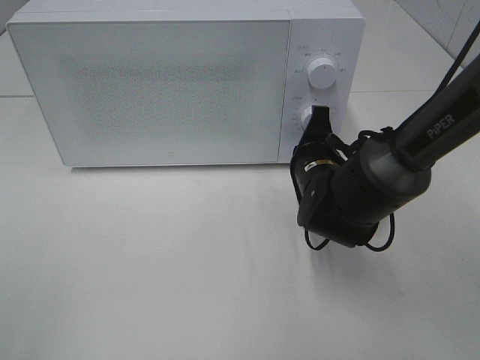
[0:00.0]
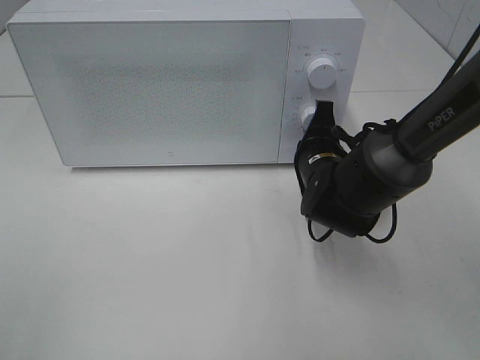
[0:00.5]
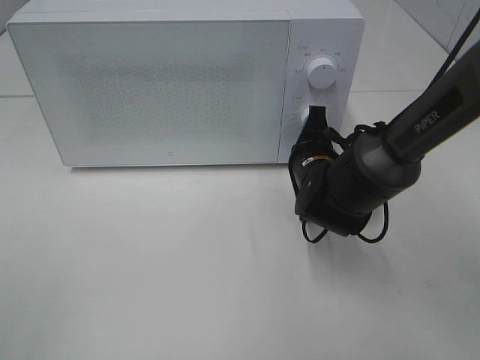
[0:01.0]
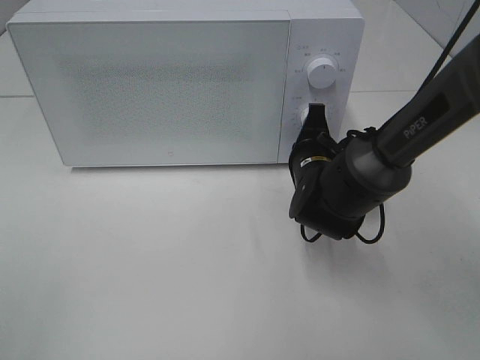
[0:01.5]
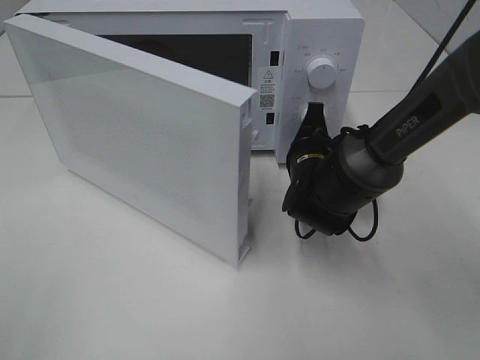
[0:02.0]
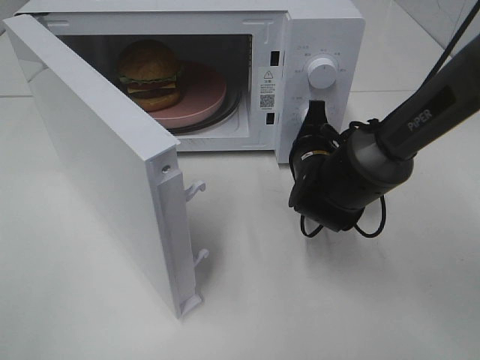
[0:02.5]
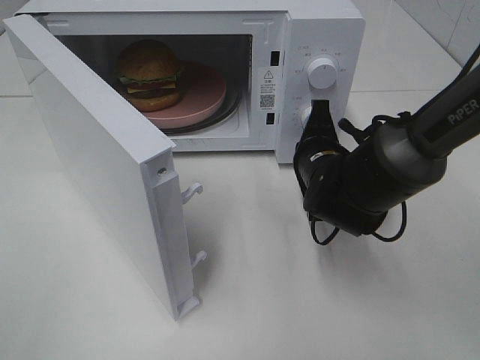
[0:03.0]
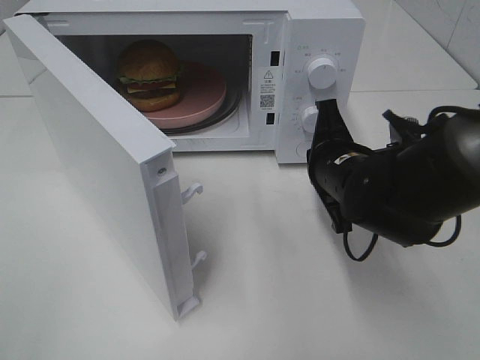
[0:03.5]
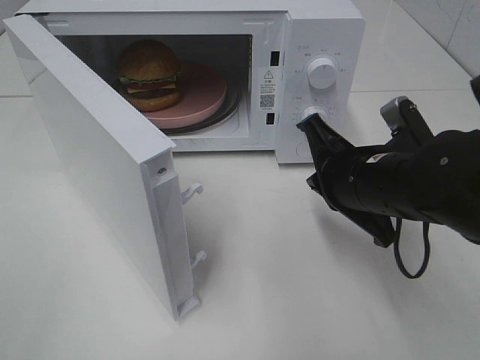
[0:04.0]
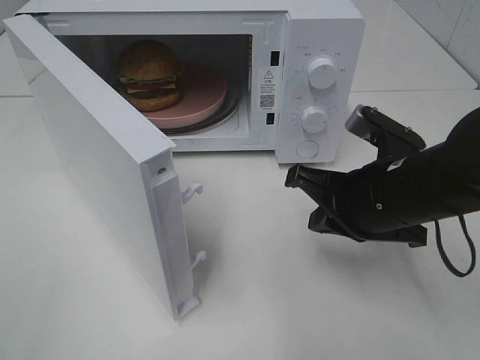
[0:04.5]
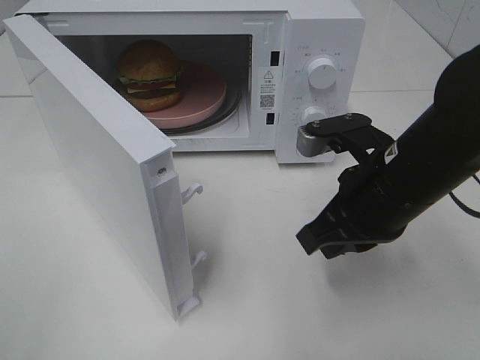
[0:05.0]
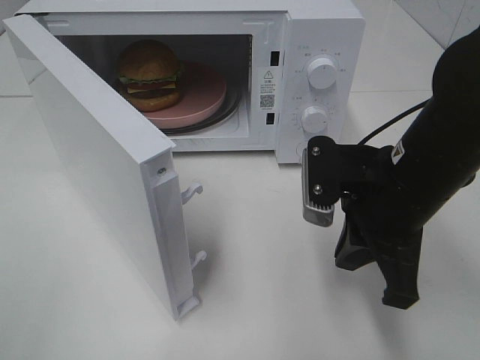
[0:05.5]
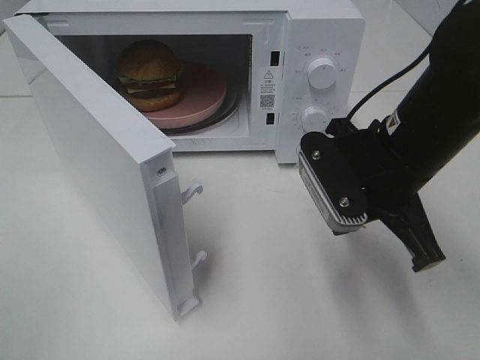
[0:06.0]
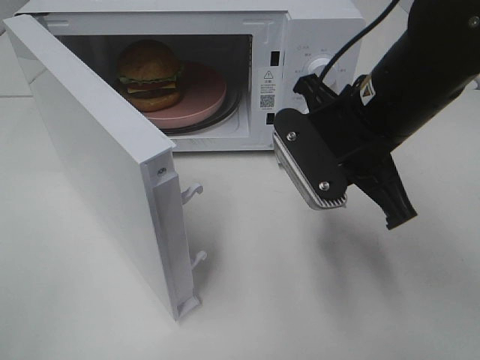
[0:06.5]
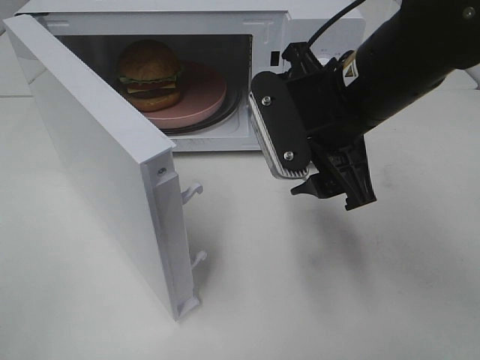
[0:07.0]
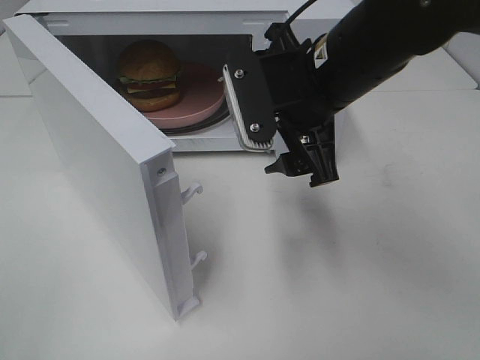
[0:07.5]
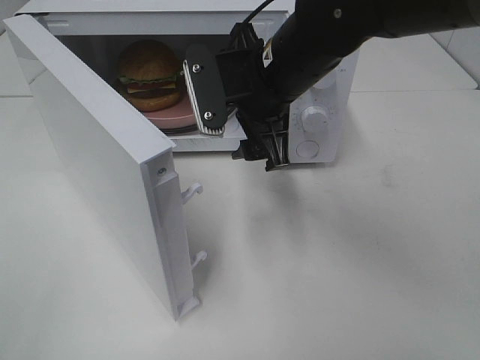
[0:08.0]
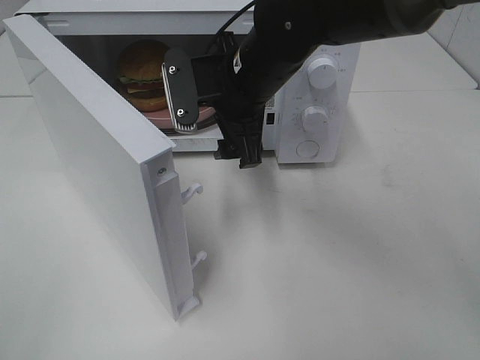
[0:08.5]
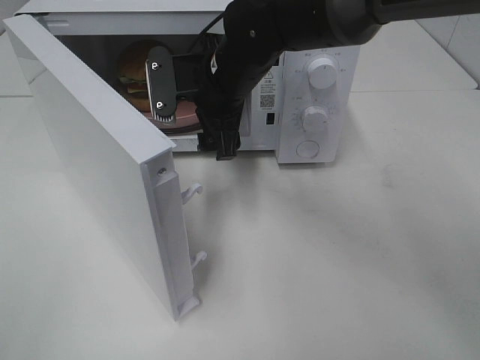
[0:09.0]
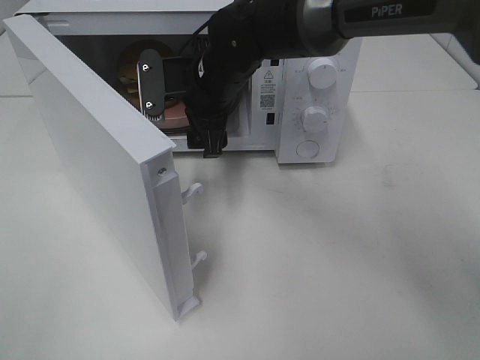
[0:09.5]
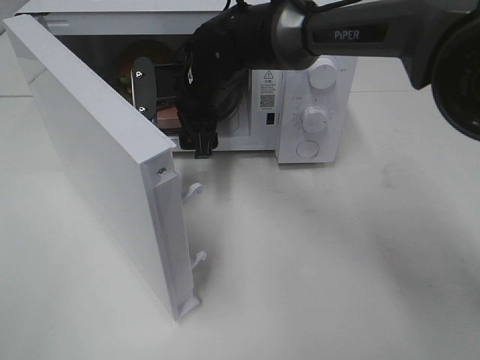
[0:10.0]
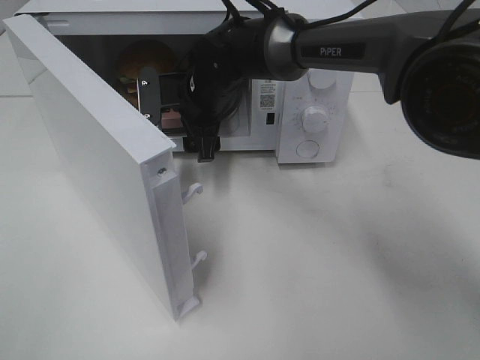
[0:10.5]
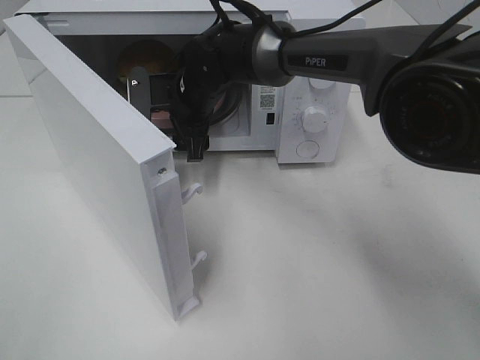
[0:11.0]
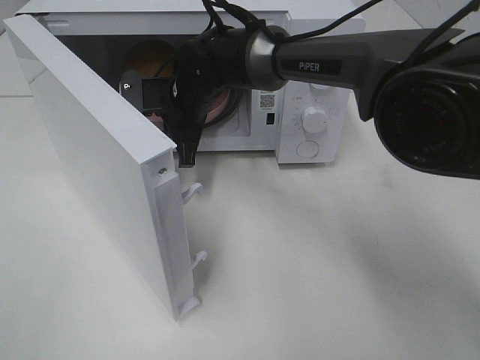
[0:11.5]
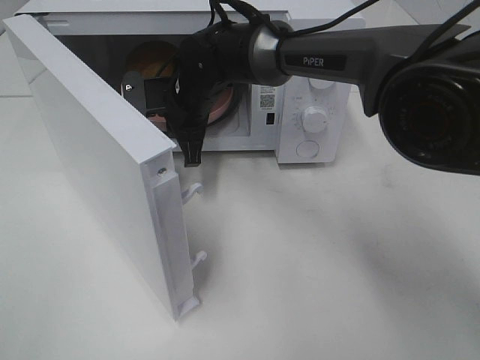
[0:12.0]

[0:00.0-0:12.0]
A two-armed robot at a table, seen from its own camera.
Task of the whole recording: Heat the burger.
Step, 0.0 to 3.0 s: Right hand: press the switch.
Step, 3.5 to 11.0 s: Right hand: grab the plate with the hamburger.
2.0 to 4.0 s: The right gripper heads backward and upward, covering about 15 cm.
4.0 to 6.0 s: The right gripper travels upward by roughly 5 cm.
6.0 to 8.0 s: The right gripper heads to the left and forward, covering some 15 cm, and opens up.
8.0 to 10.0 s: The right gripper is displaced forward, to the left and downward by roughly 15 cm.
10.0 to 12.0 s: The right gripper closes.

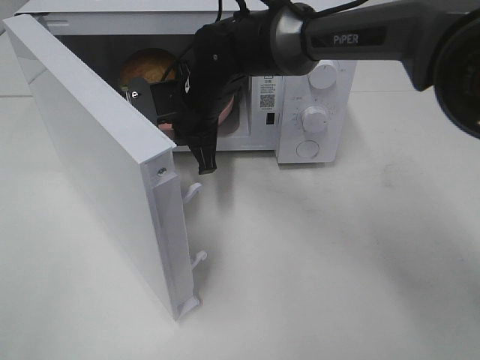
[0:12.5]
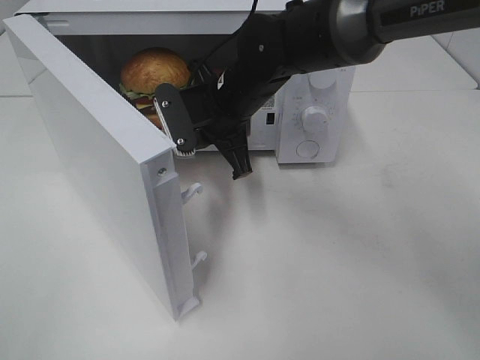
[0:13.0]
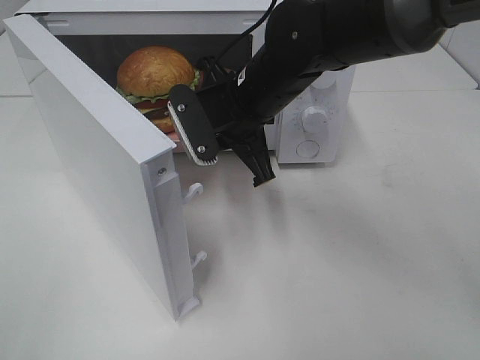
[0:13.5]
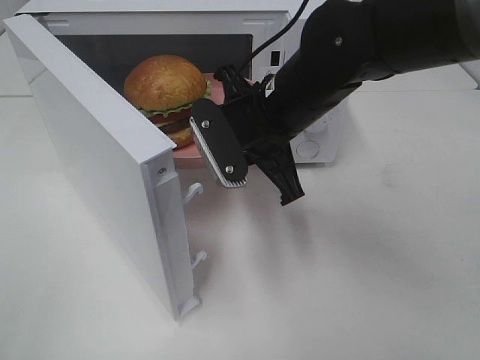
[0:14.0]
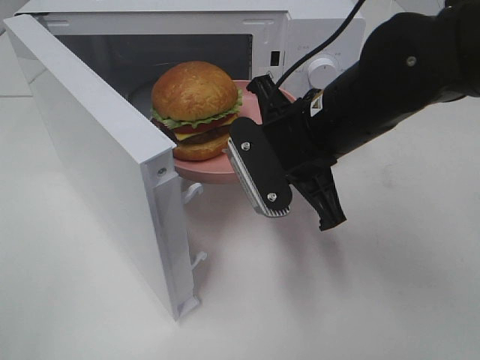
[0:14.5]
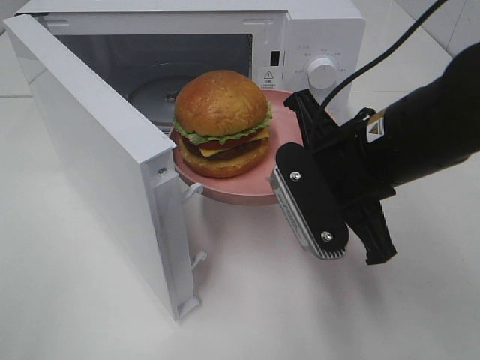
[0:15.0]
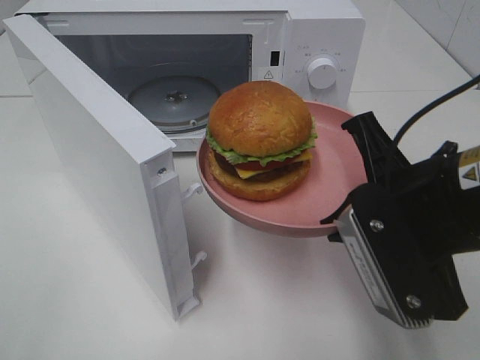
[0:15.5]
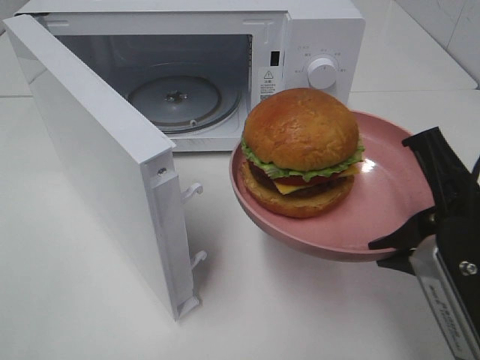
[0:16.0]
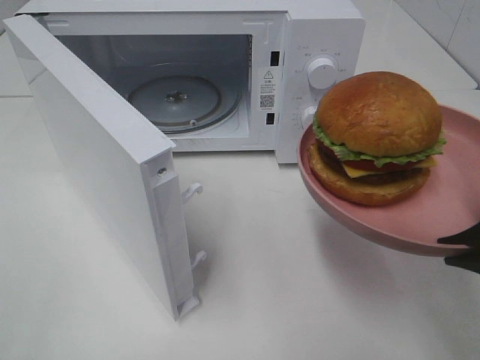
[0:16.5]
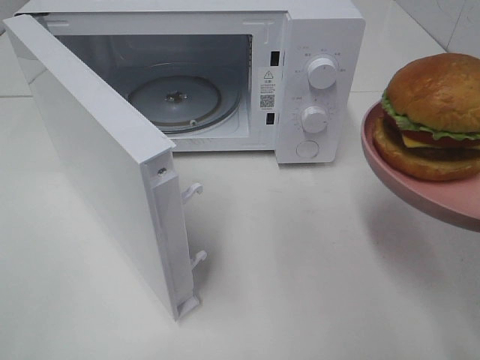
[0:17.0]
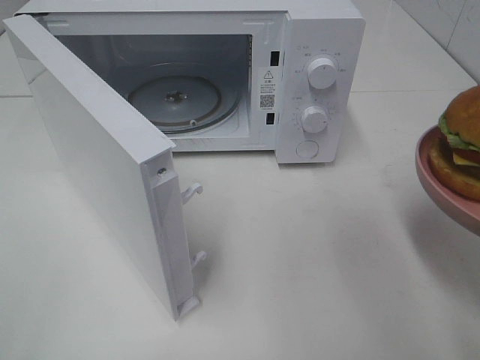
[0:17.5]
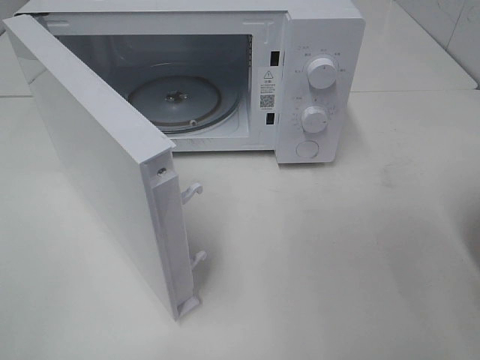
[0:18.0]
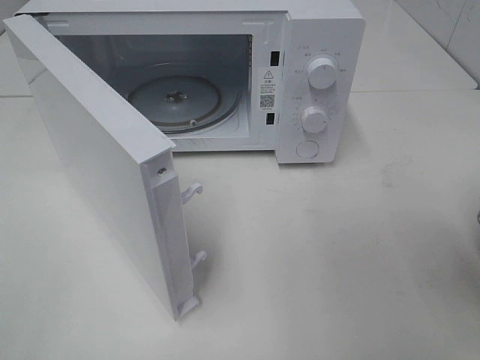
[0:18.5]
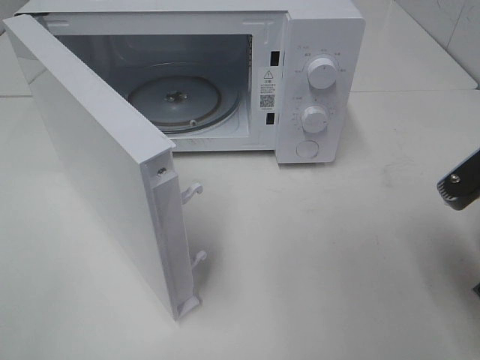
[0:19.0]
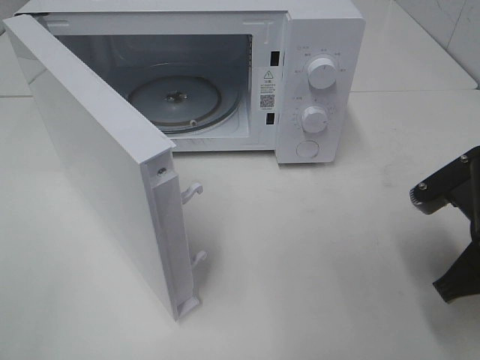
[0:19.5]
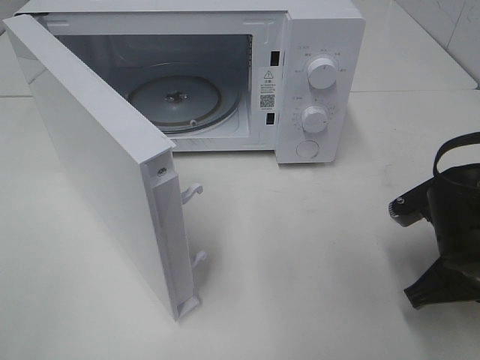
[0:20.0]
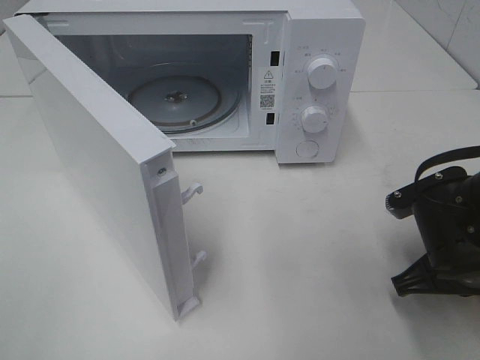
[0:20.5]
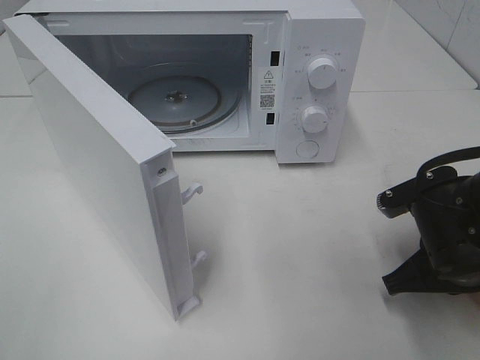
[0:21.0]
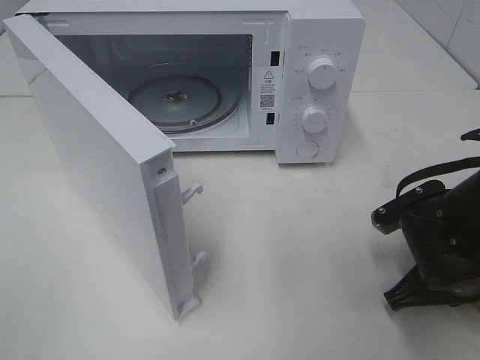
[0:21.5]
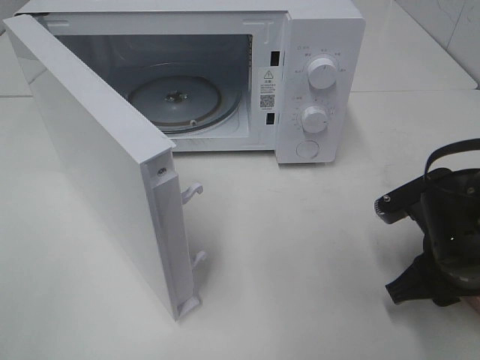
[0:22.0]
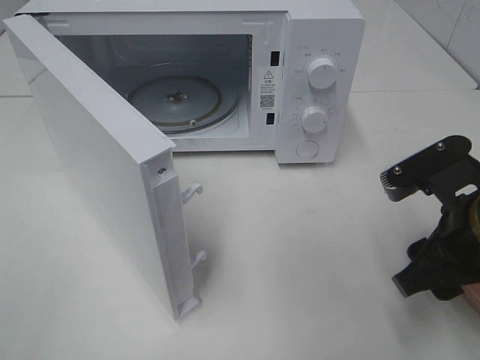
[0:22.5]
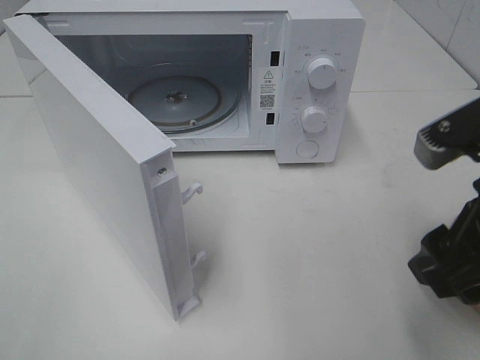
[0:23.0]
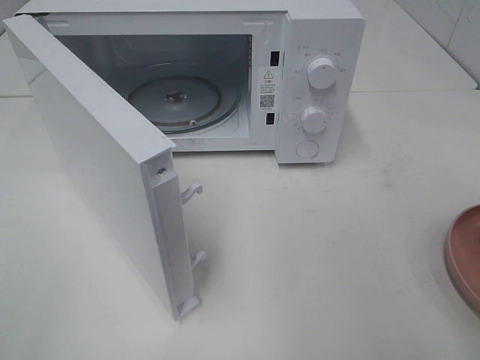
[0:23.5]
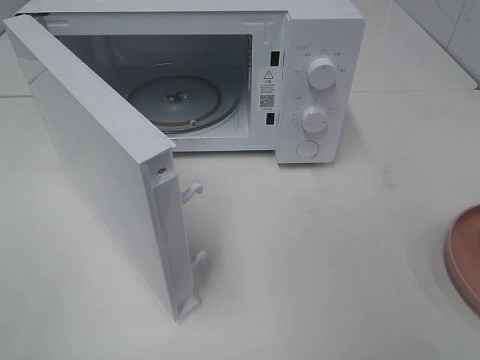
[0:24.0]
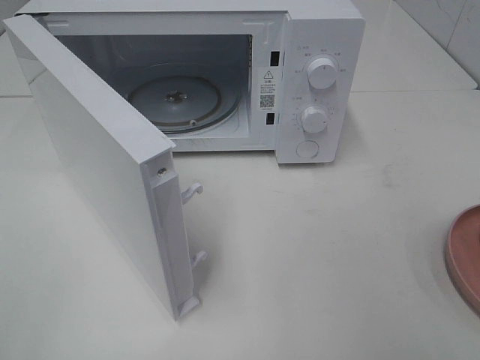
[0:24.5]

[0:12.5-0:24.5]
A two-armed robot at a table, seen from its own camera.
Task of the whole recording: Heat the burger.
Step, 12.5 to 21.5 s: Right hand: place the plate on the table.
12.5 to 14.5 s: The right gripper is displaced backward and to the right by some 20 cm.
14.5 to 16.5 s: The right gripper travels backward and to the right by about 20 cm.
16.5 to 18.5 s: The right gripper shifts by some 5 cm.
18.5 to 20.5 s: The right gripper moves downward and forward, about 10 cm.
20.5 to 22.5 s: The right gripper is displaced upward by some 5 cm, and opens up.
22.5 to 24.5 s: The right gripper moves backward, upward and to the right, about 20 cm.

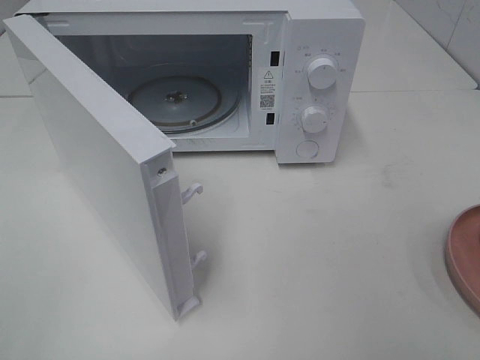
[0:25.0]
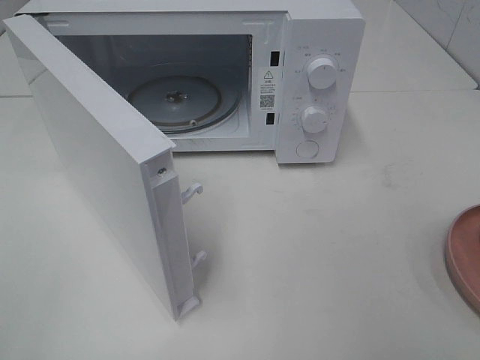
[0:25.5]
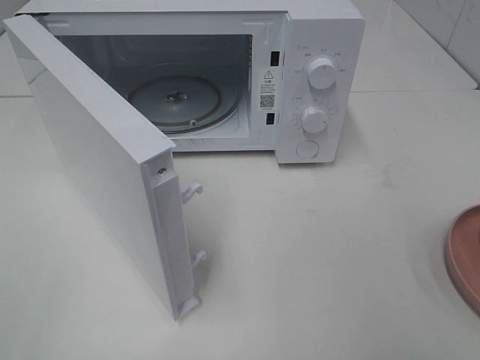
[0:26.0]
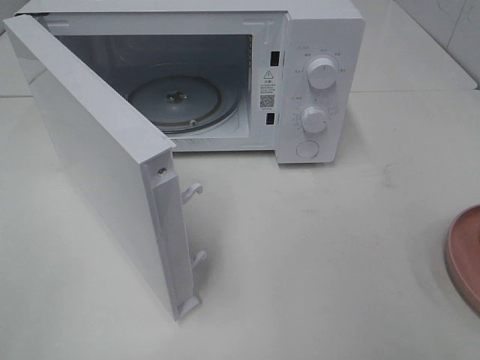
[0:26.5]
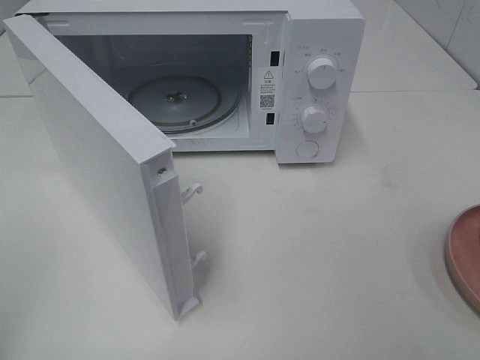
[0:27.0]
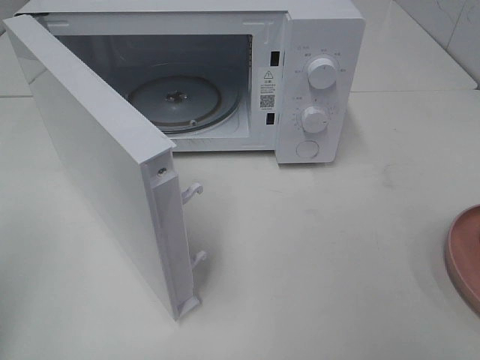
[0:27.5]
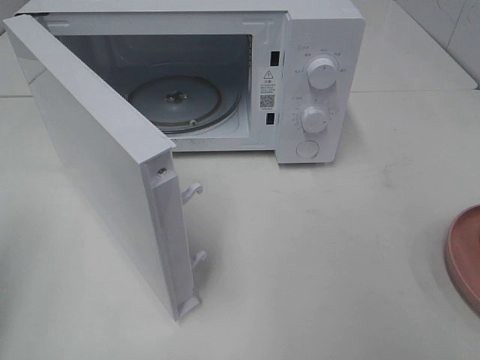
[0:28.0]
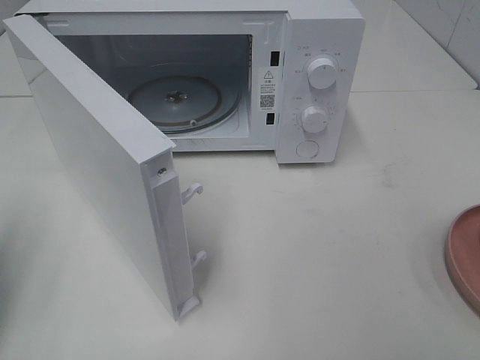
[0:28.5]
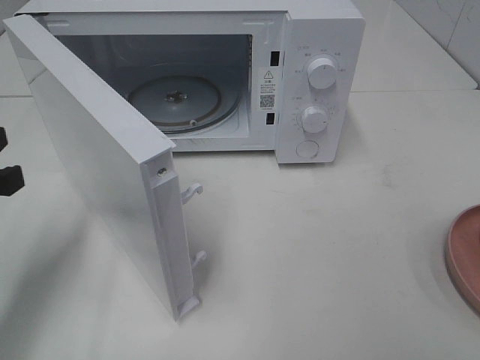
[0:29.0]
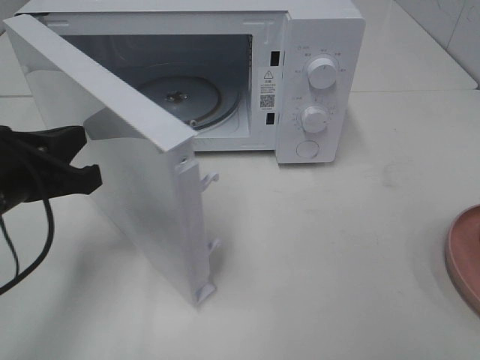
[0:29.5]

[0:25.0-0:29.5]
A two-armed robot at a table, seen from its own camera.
Task of the whole recording: Heat the burger.
27.0 to 29.5 s: The left gripper shifts about 25 cm forward, downward and to the right.
